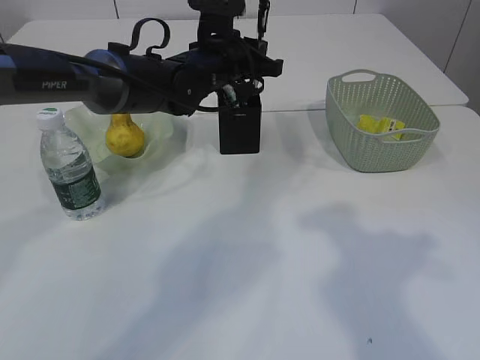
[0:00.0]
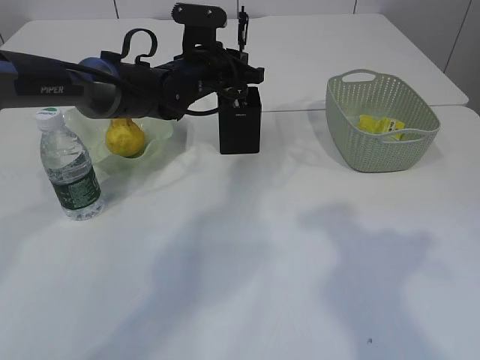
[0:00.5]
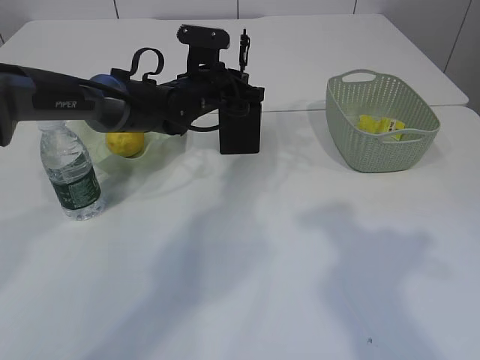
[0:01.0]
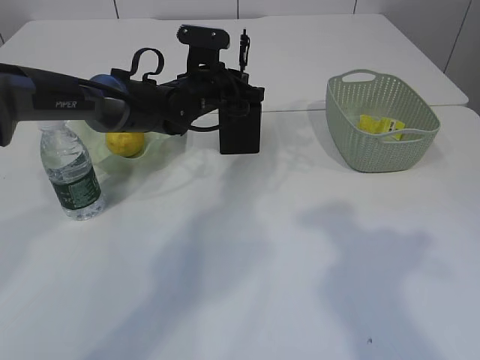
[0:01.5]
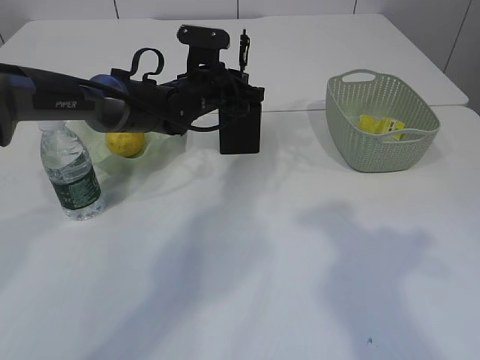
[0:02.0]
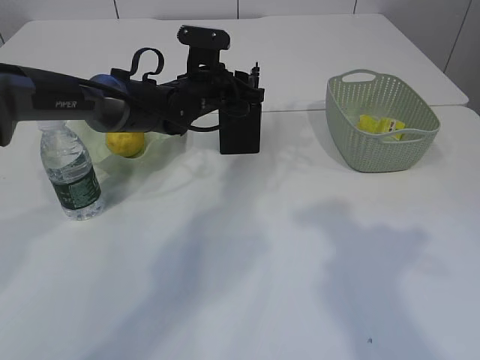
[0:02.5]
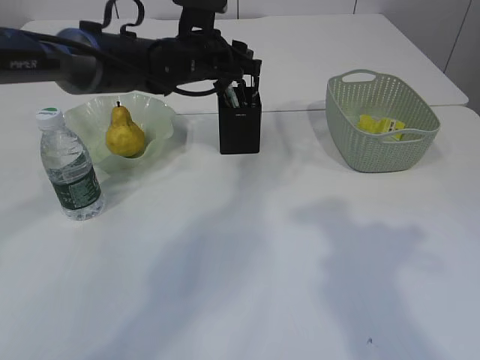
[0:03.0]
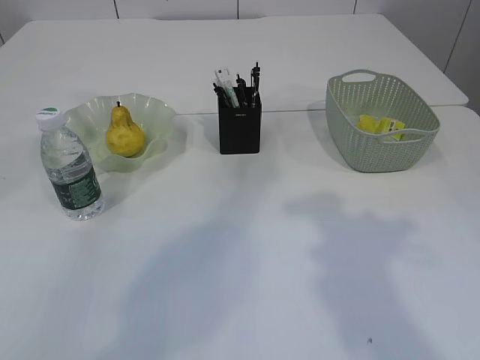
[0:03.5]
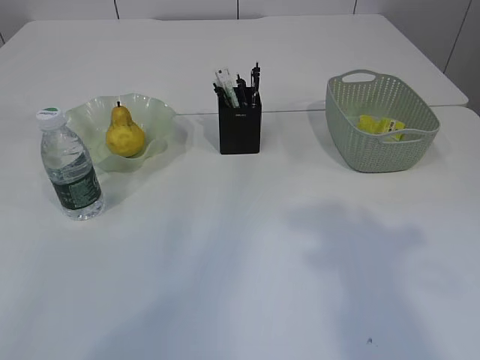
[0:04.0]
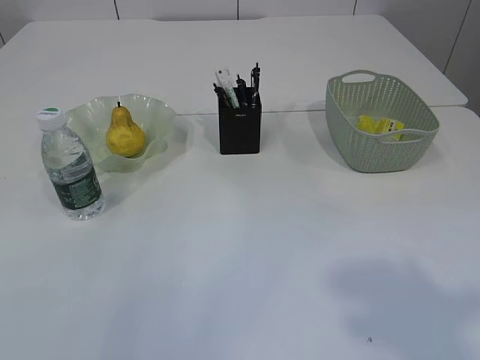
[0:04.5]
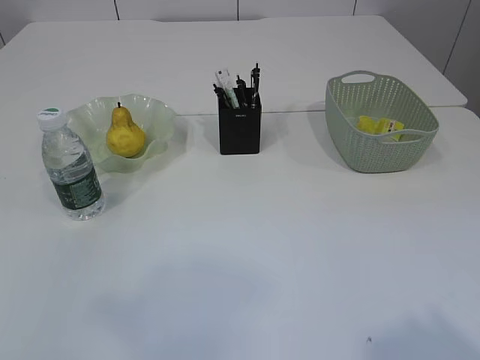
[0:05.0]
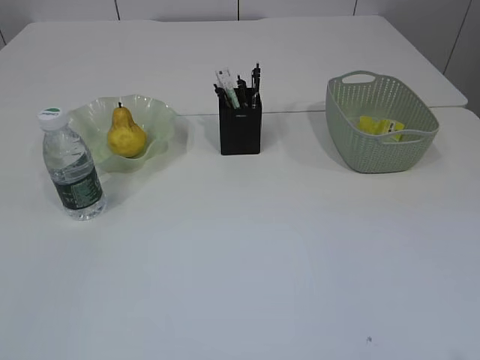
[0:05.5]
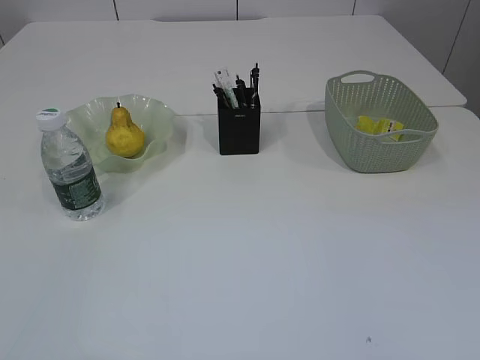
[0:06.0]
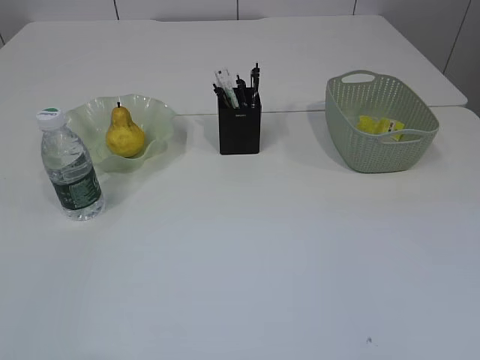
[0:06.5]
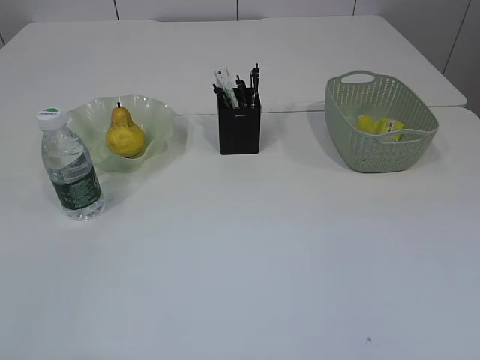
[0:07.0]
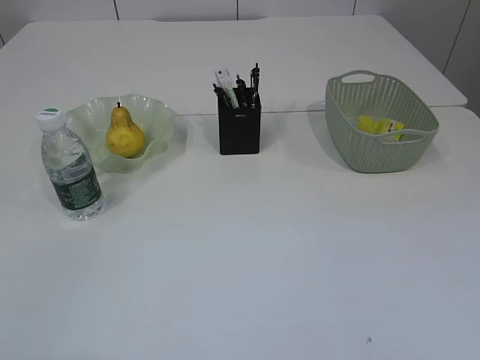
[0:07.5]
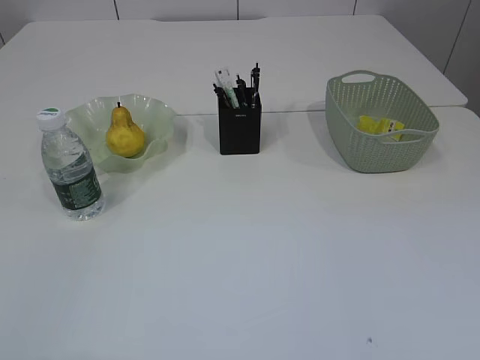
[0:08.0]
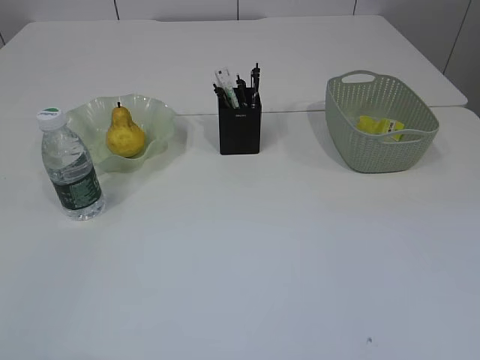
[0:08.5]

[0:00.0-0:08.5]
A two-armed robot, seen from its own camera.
Step, 0:00.0 to 0:03.0: Place the pen into the pen holder.
0:00.0 to 0:02.0: The left gripper ends up approximately 5 cm from where it was.
0:02.0 to 0:04.0: The right gripper moves upward, roughly 5 cm, while the left gripper moves upward, to the left and backward, about 40 cm, and opens.
0:04.0 to 0:06.5: The left gripper moves backward and downward, some 40 cm.

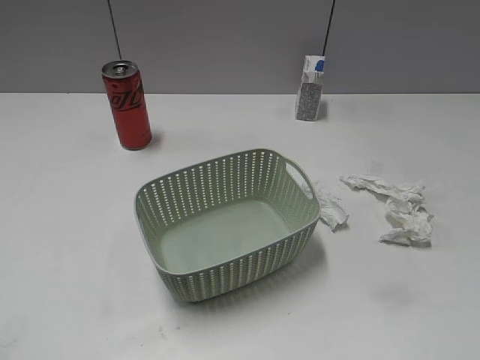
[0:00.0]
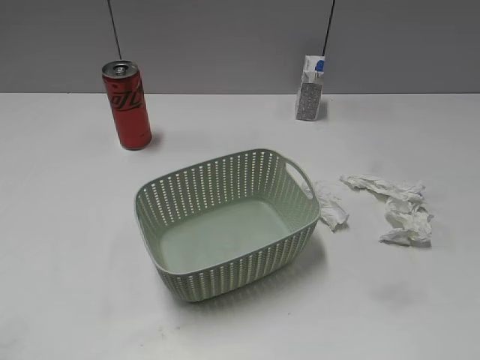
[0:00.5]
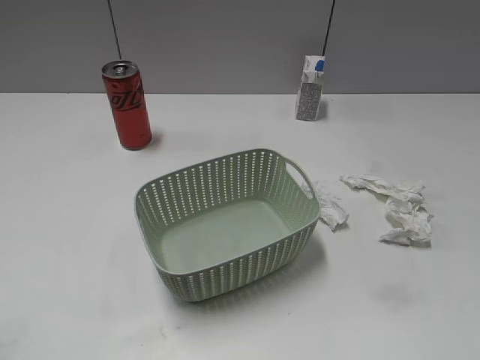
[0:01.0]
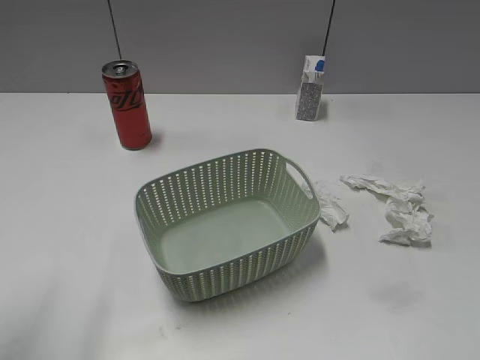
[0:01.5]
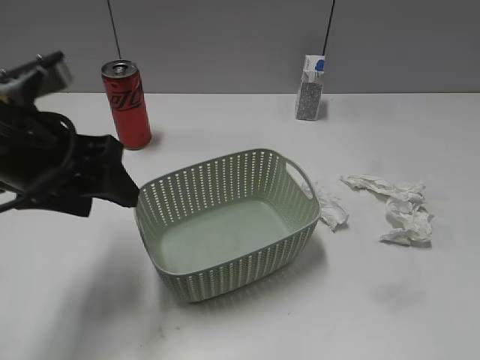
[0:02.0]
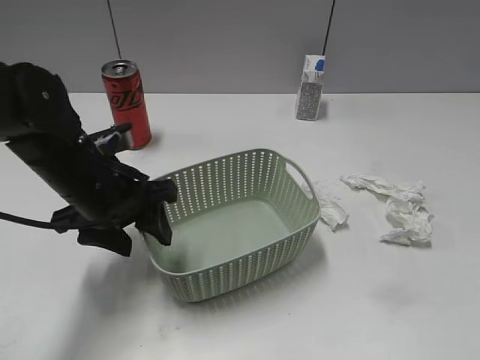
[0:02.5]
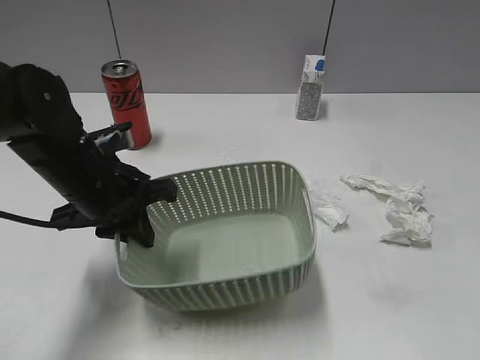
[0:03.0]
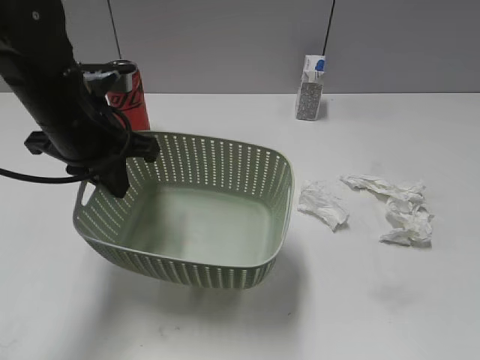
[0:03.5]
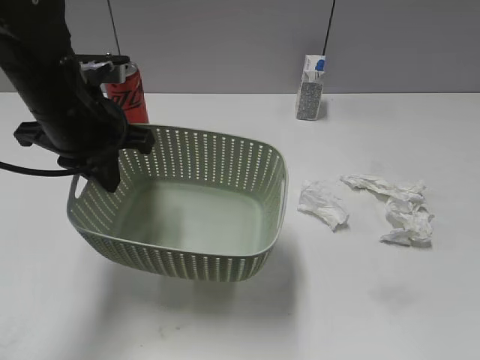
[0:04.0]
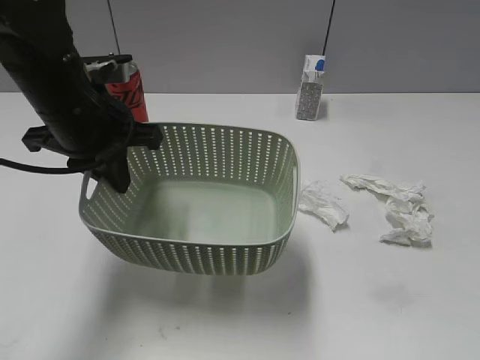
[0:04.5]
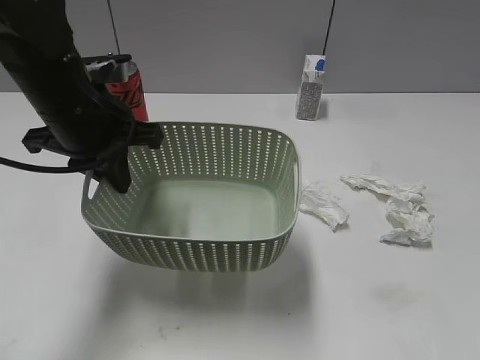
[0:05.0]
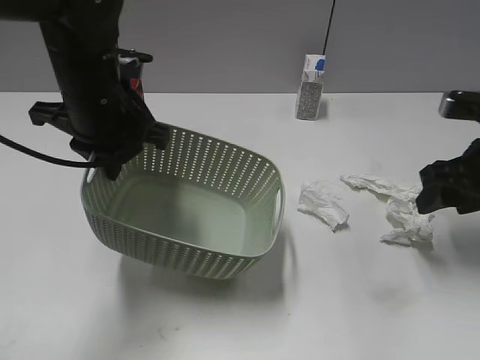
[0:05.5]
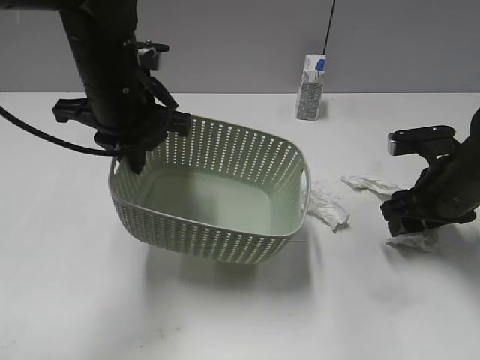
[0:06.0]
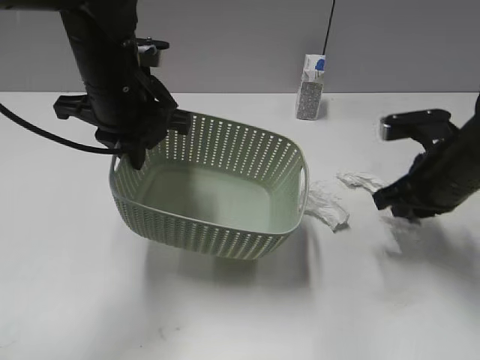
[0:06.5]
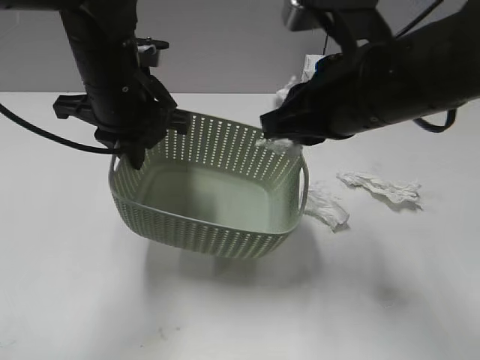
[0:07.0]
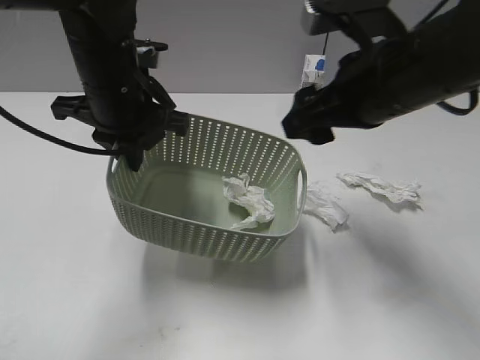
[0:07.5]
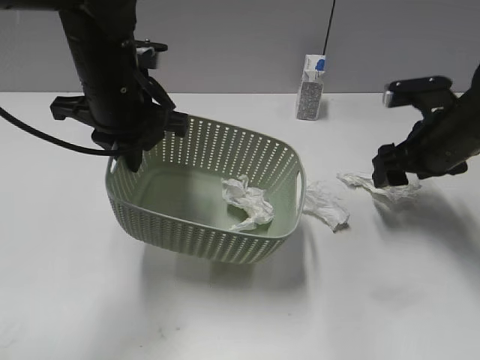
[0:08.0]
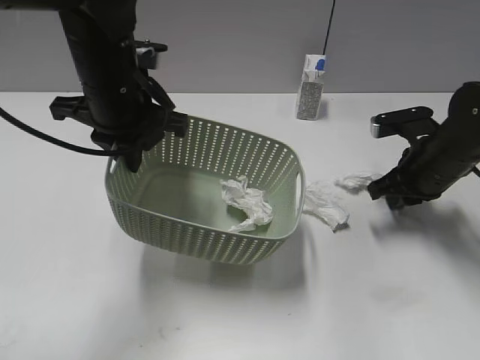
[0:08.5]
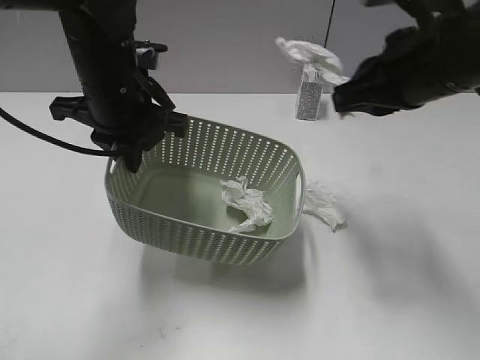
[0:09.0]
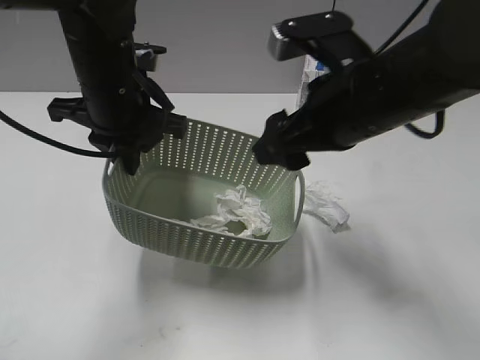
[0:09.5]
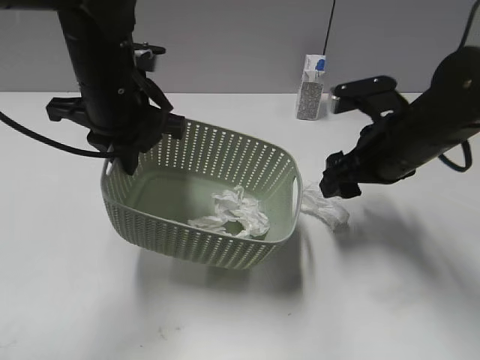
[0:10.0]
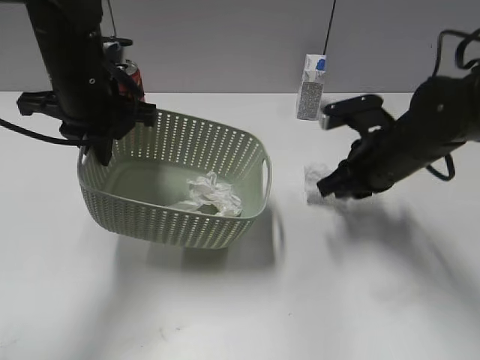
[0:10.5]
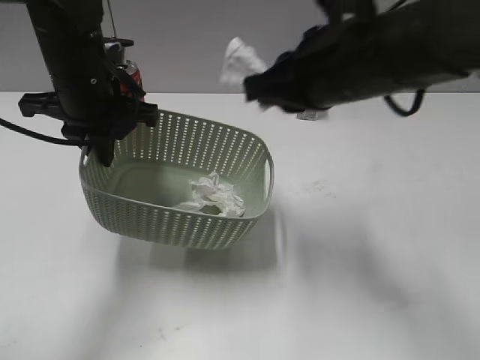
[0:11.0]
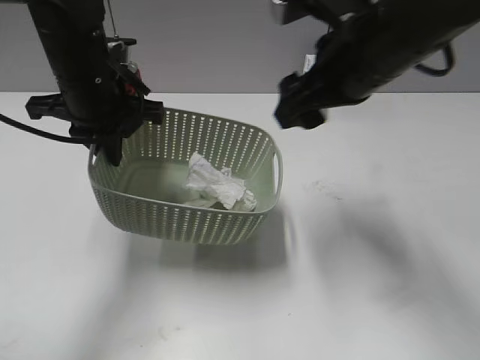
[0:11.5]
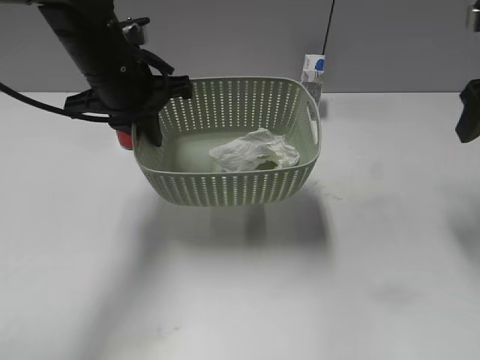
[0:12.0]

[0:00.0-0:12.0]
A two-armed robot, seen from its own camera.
Step, 0:01.5 to 0:03.0: Grasp the basket with left gripper.
Step, 0:04.0 to 0:06.5: Grasp the waste paper with right gripper.
Step, 0:07.0 to 0:07.5: Place the waste paper in the basket with right gripper.
Step, 0:08.0 to 0:08.5: Grasp the waste paper with right gripper.
Step, 0:09.0 to 0:09.5: Place the waste paper in the basket with right gripper.
Step, 0:10.5 to 0:11.0: Place the waste paper in the basket with right gripper.
0:02.0 to 0:04.0: The left gripper shifts about 5 cm forward, travels downward and back again, approximately 10 cm each way, and closes.
0:04.0 to 0:06.0: The right gripper moves forward and downward, roughly 35 cm, while the left gripper ends up roughly 5 cm from where it was.
0:06.0 to 0:08.0: The right gripper moves some 15 cm upward and comes back, and closes and opens again.
0:08.0 to 0:10.0: The right gripper swings up and down, approximately 15 cm each way, with 2 reversals, and closes and opens again.
0:10.0 to 0:12.0: The right gripper moves to the right and upward, some 15 cm, and closes, then opens again.

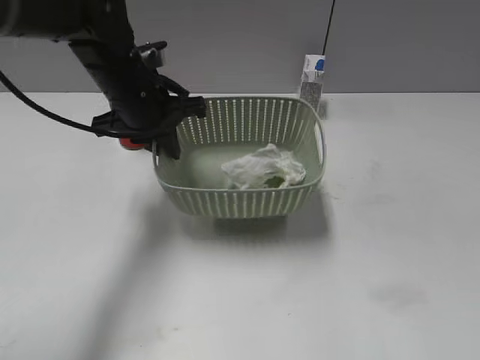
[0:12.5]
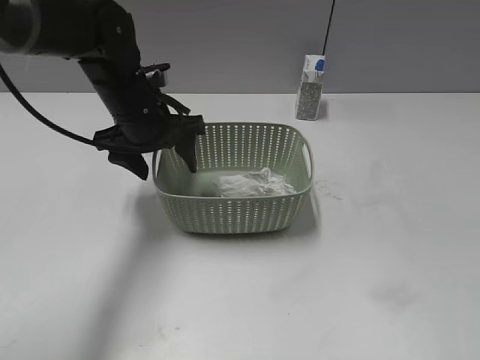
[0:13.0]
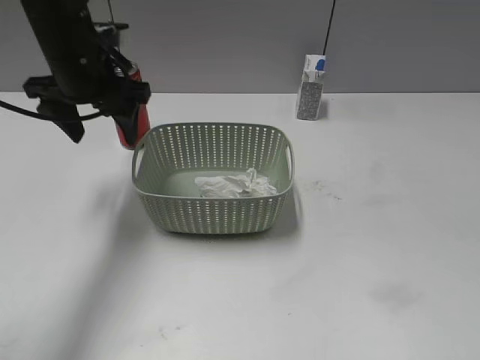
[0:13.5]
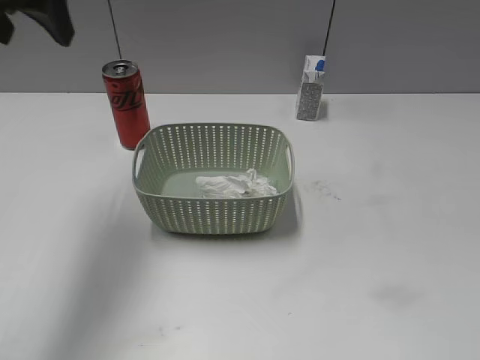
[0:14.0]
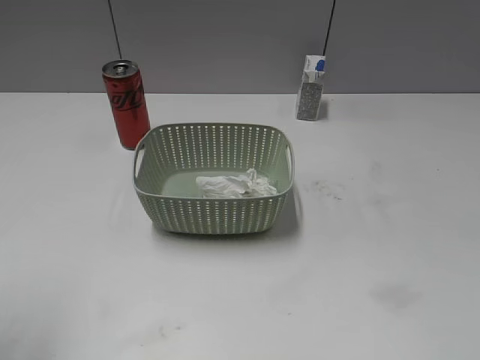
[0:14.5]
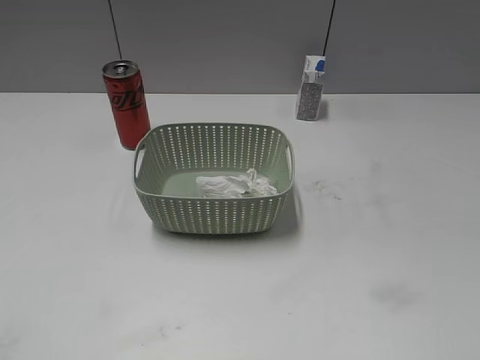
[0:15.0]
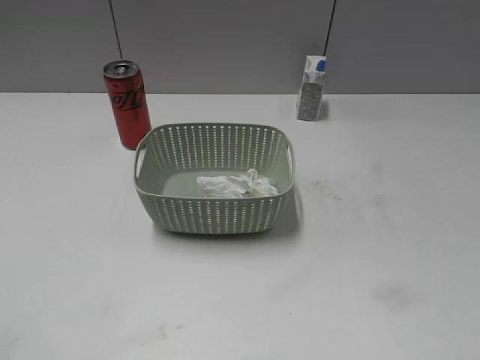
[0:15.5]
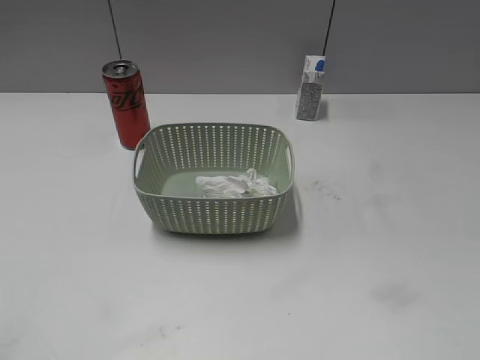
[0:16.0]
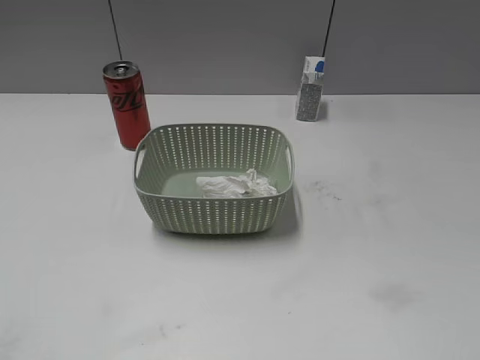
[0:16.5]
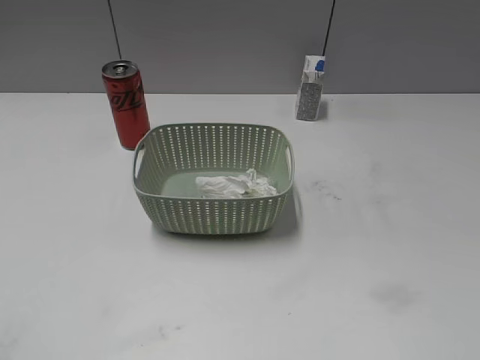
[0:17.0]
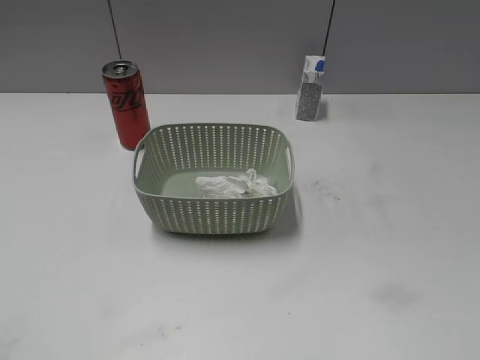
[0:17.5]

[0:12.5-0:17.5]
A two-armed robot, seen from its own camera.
0:12.5 to 0:15.0: The left gripper moves backward and to the left, approximately 40 cm, and opens its fingers, while the right gripper goes about 20 cm backward and downward.
